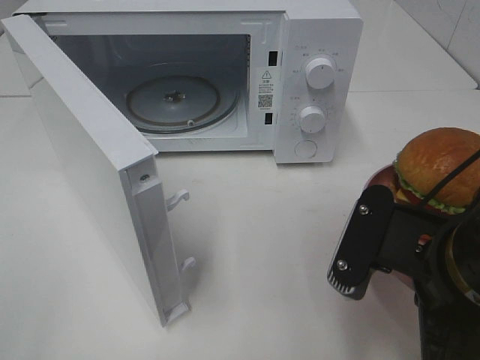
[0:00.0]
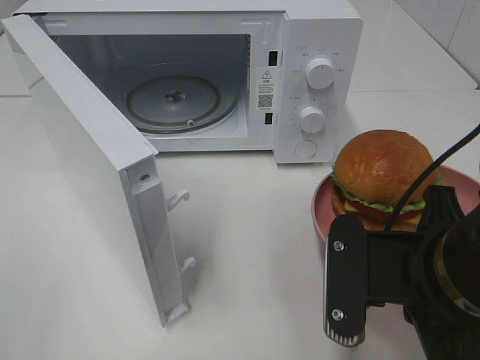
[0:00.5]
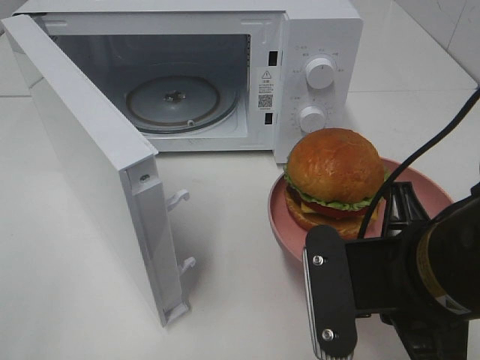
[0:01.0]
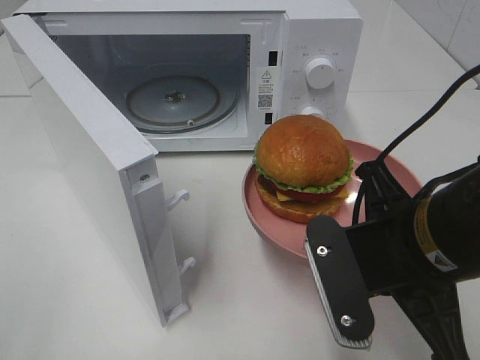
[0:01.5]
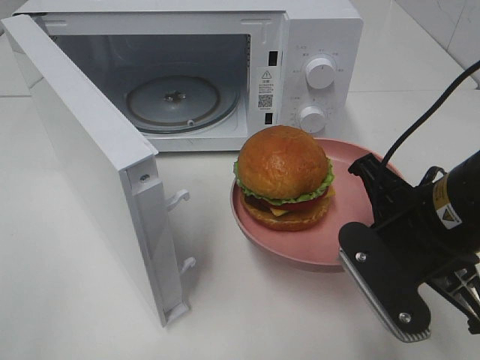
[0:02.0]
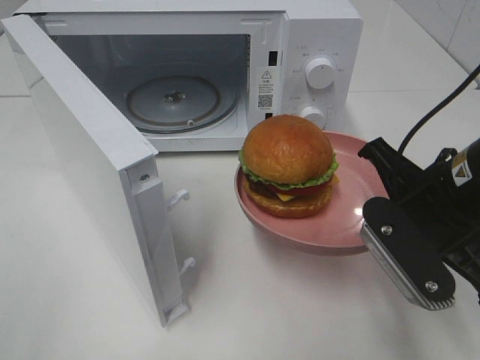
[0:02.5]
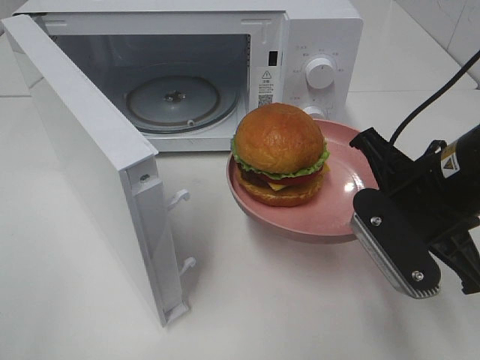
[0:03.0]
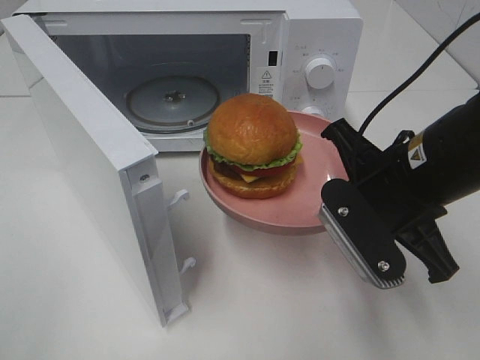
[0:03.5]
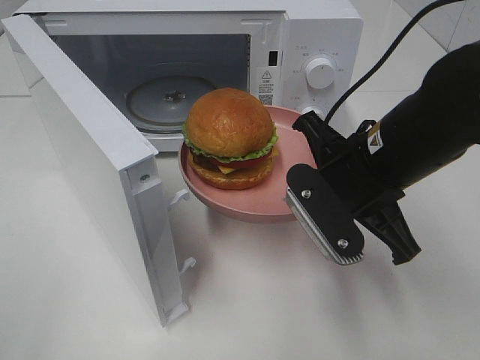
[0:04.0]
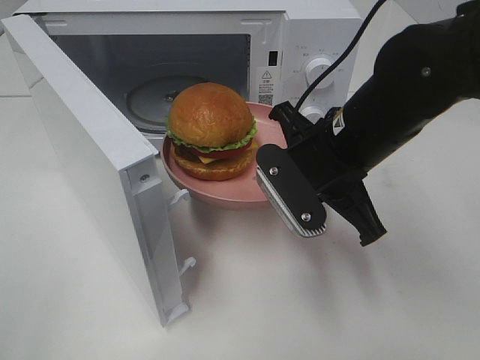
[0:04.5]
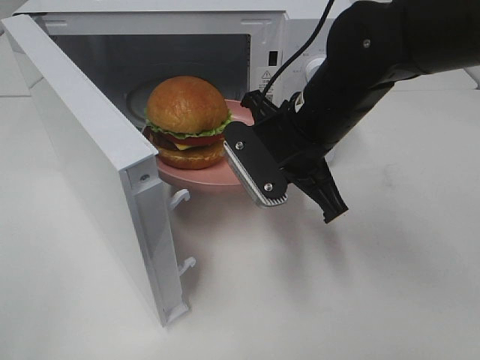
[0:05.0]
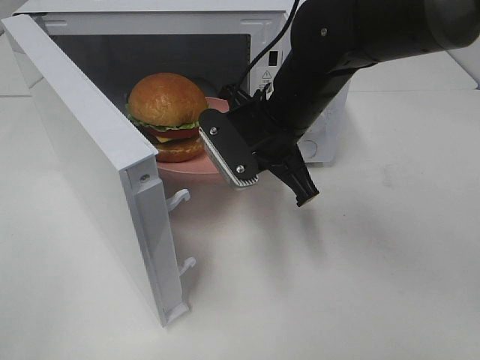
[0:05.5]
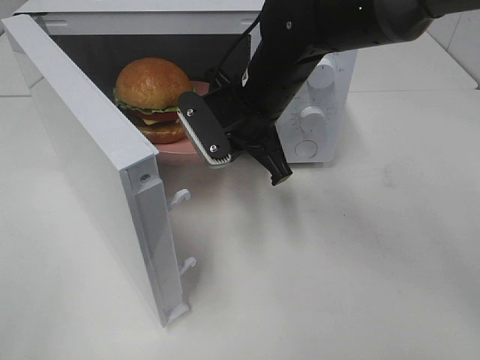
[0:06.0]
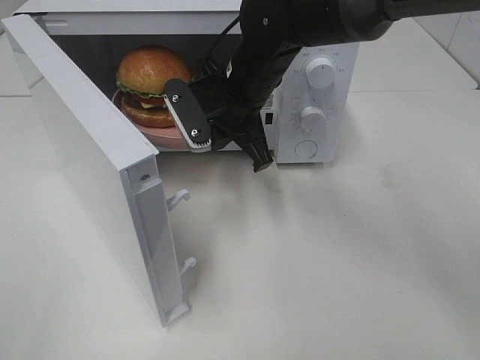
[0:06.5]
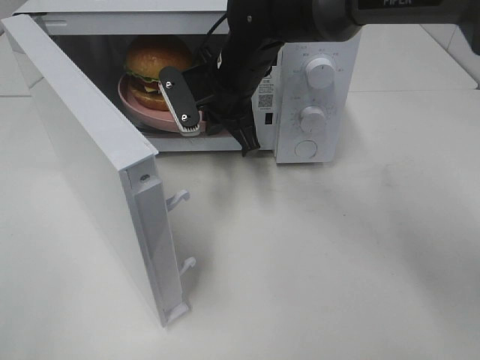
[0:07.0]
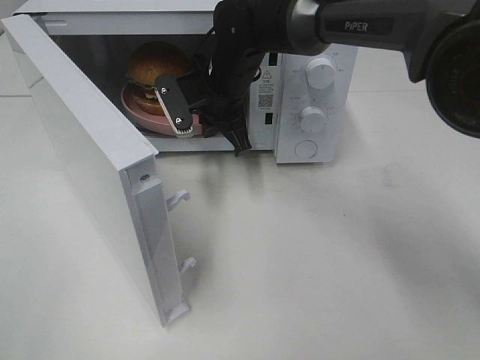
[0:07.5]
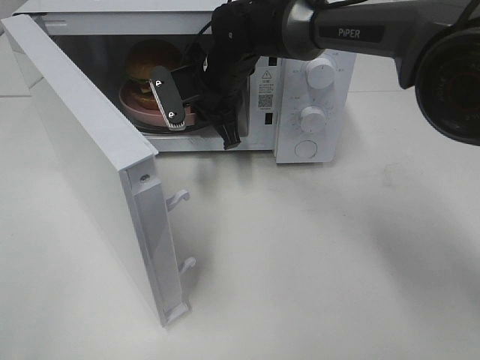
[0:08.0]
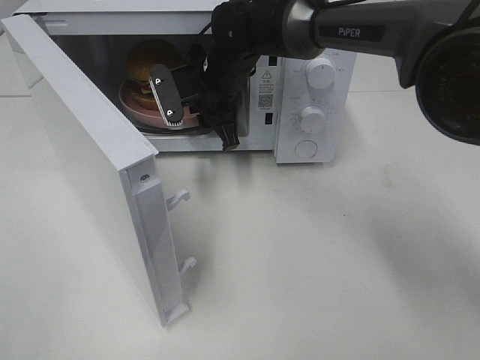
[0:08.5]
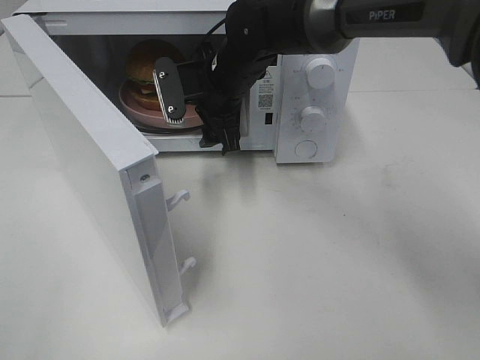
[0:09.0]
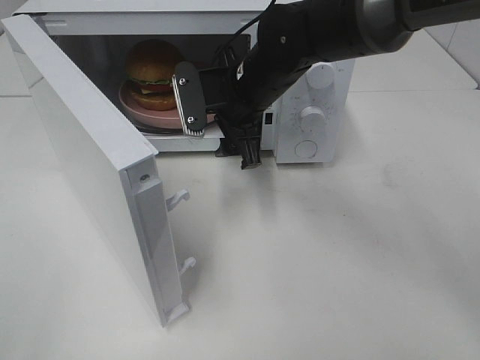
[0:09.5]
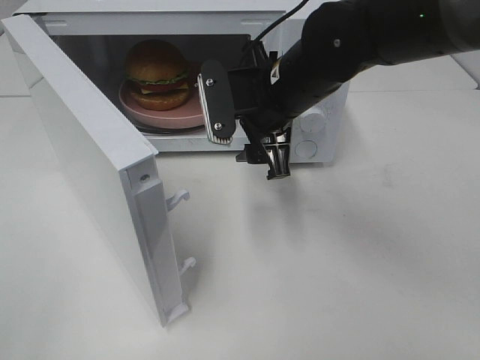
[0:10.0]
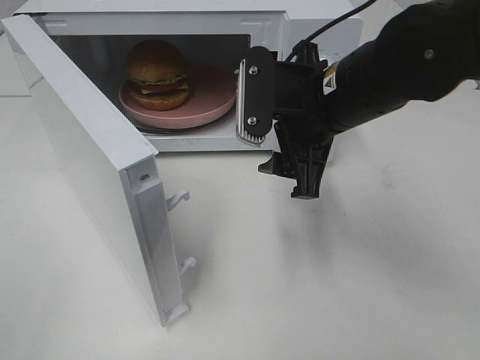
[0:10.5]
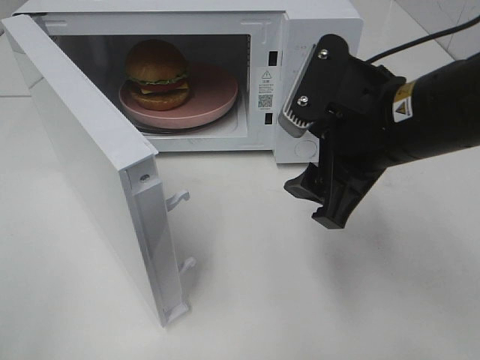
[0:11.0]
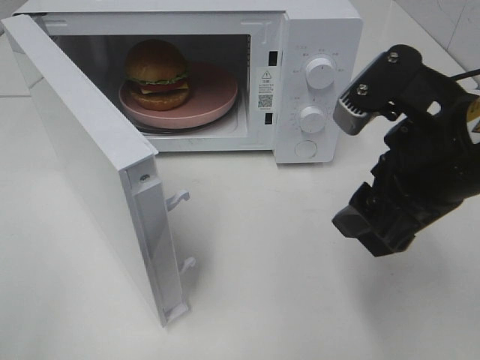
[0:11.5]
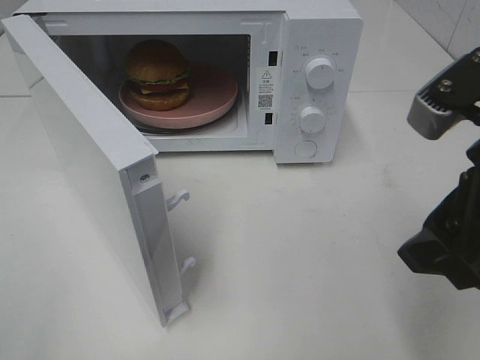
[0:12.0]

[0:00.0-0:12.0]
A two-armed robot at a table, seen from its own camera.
Task of the whole recording: Heat the burger.
Step, 0:00.0 to 0:08.0: Right hand: place the plate in the microwave.
0:00.0 to 0:02.0: The right gripper goes roughly 5 cm forward.
0:02.0 to 0:04.0: The right gripper shifts some 5 cm forward.
0:04.0 to 0:06.0: The right gripper is displaced forward and to the left by approximately 15 cm.
0:06.0 to 0:08.0: The right gripper shifts roughly 10 cm forward.
0:08.0 to 0:10.0: The right gripper heads backward and to the right, covering approximately 15 cm, and opens its fingers.
0:10.0 to 0:12.0: The right gripper moves backward and to the right, some 25 cm.

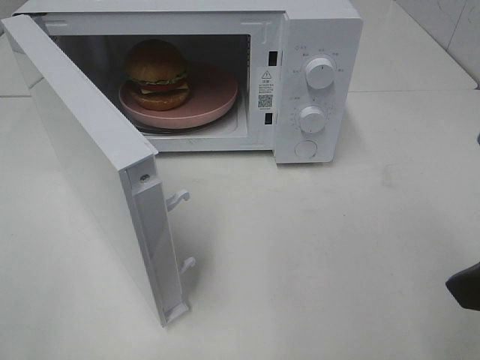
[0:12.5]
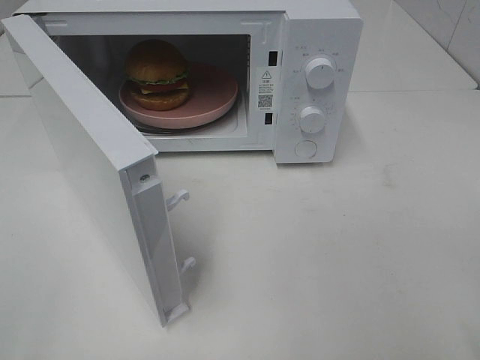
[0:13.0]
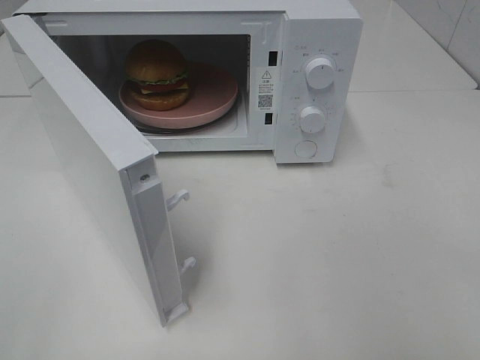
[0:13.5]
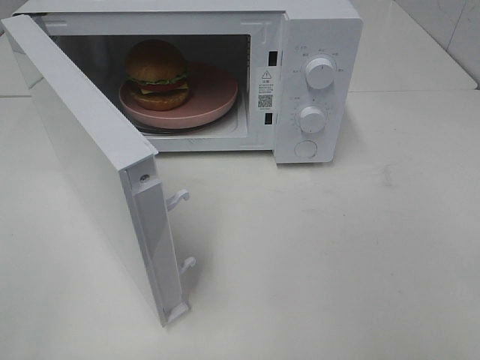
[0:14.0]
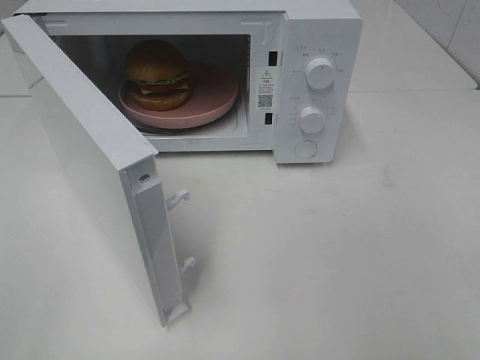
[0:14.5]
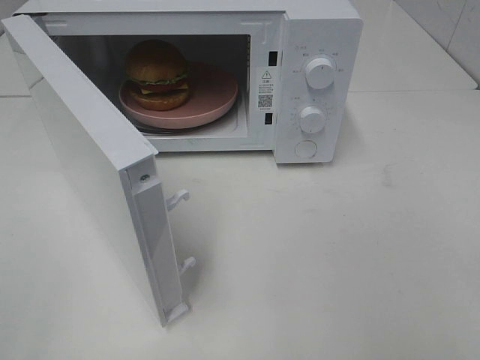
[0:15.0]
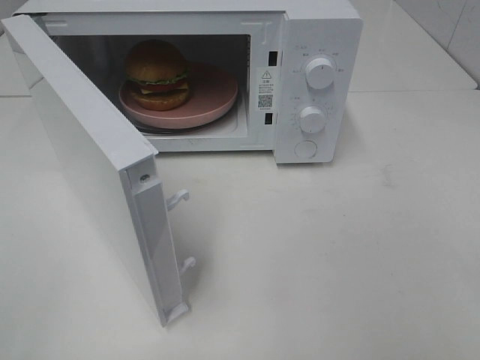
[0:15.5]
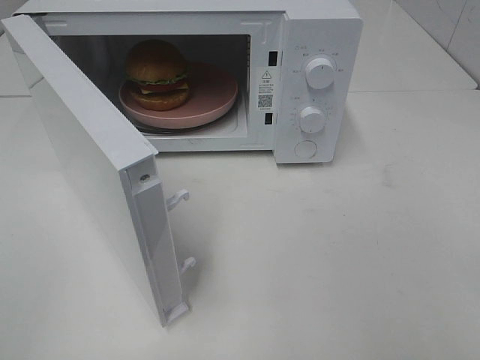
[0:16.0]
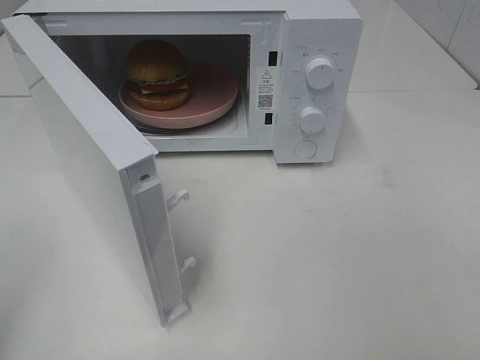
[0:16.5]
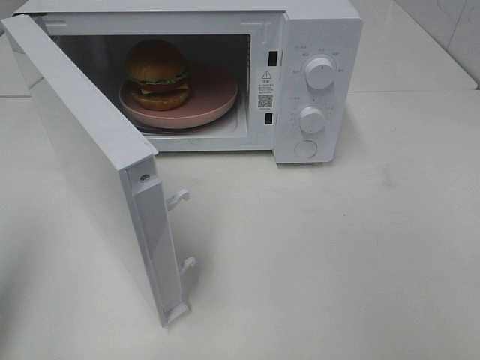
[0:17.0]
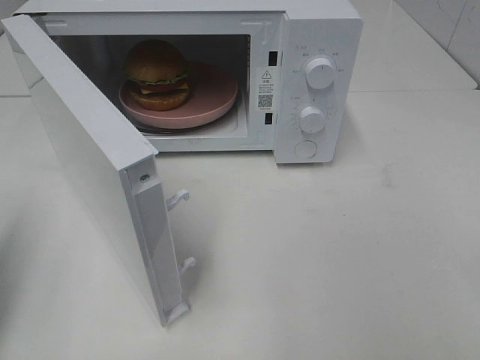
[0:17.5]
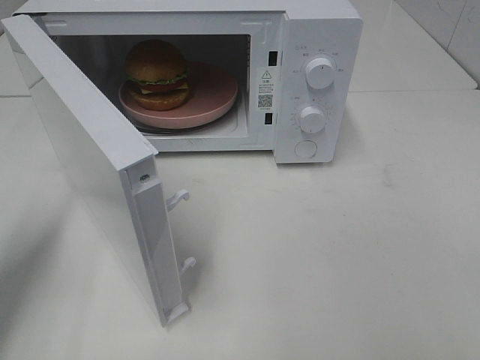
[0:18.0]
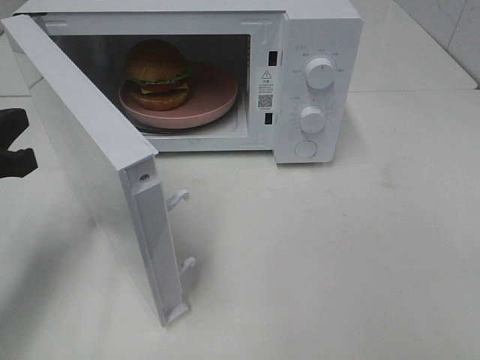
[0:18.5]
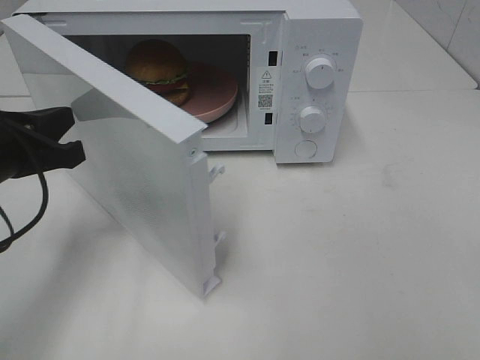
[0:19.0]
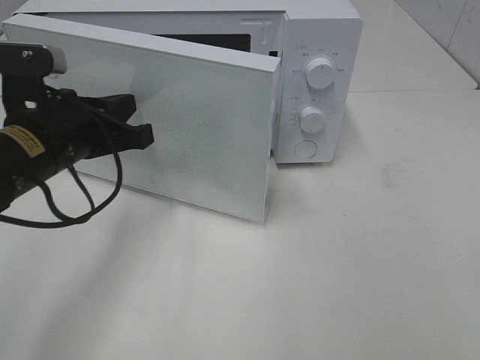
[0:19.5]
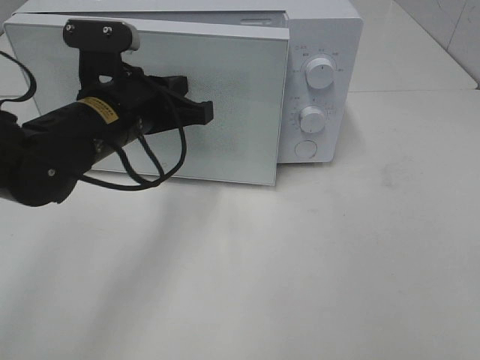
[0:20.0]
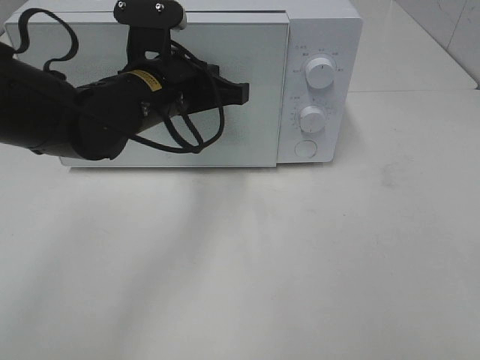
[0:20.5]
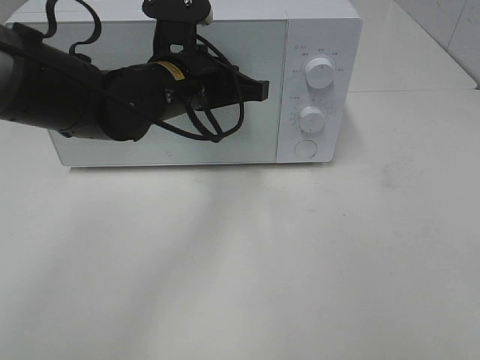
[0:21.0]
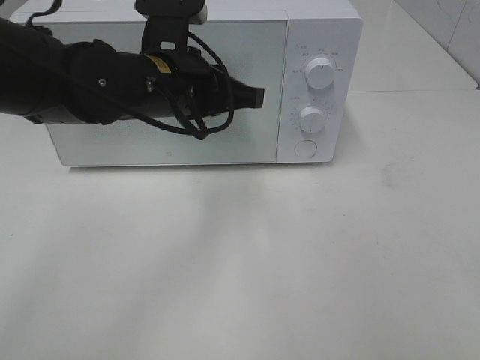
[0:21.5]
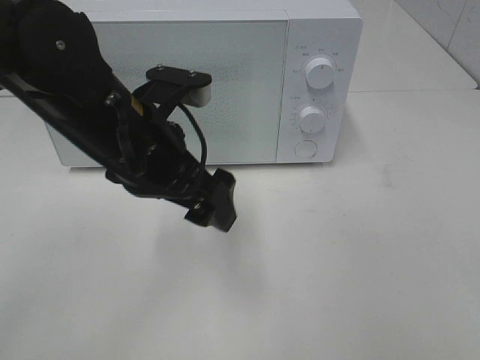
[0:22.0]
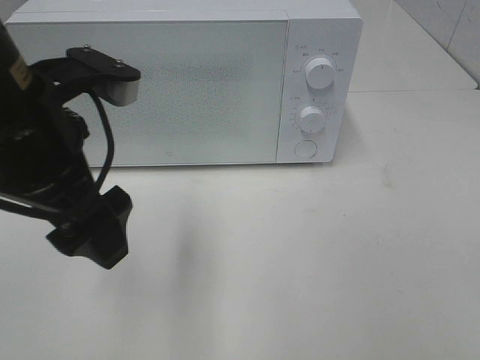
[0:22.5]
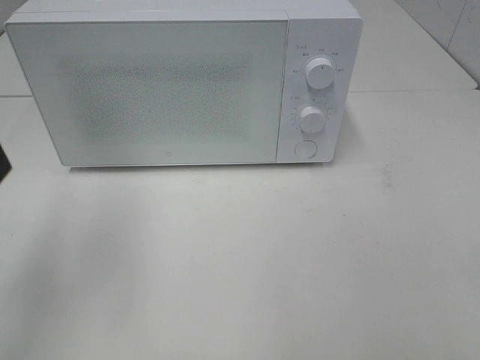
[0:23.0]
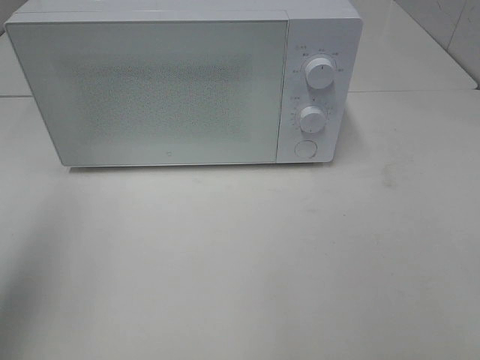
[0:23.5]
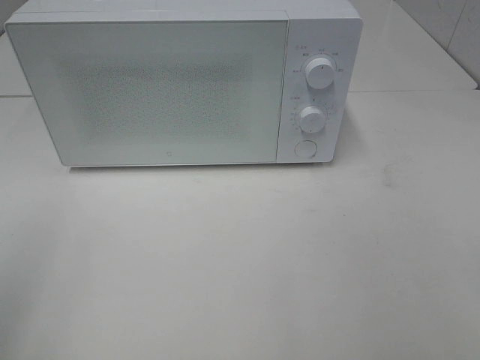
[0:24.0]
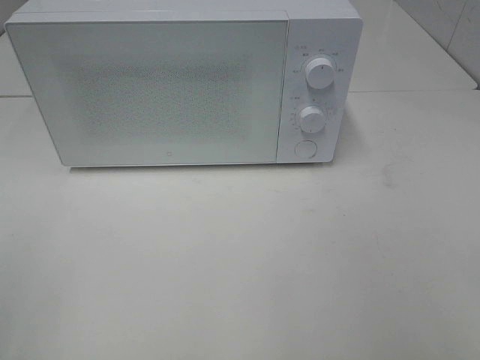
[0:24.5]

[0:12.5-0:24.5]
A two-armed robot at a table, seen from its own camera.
Task of the whole recording: Heat the burger.
Step, 0:12.5 to 0:21.0: Left hand: close the microwave door.
0:12.5 to 0:14.5: The right gripper goes some 15 cm backward and to the right.
0:16.5 to 0:18.5: The left gripper goes roughly 20 cm forward and downward.
0:18.5 to 0:20.5: The left gripper goes some 20 cm to the right and forward.
0:20.5 to 0:22.5: The left gripper goes approximately 15 cm backward, upward and to the left, and opens up.
0:22.5 to 0:24.5: The left gripper travels to the left and backward by some 25 cm.

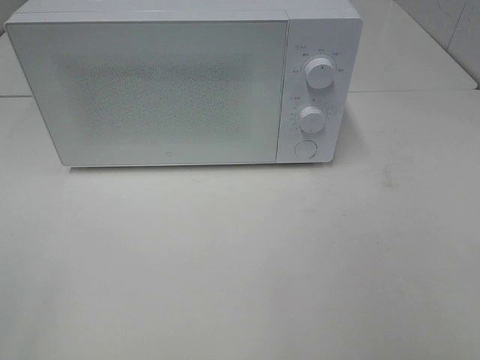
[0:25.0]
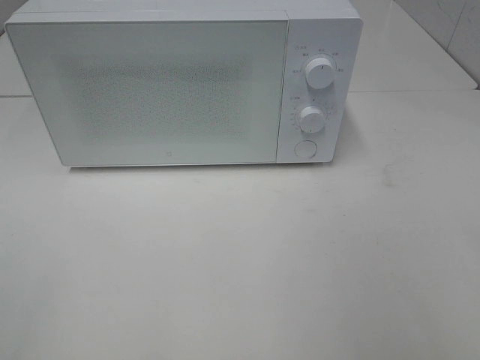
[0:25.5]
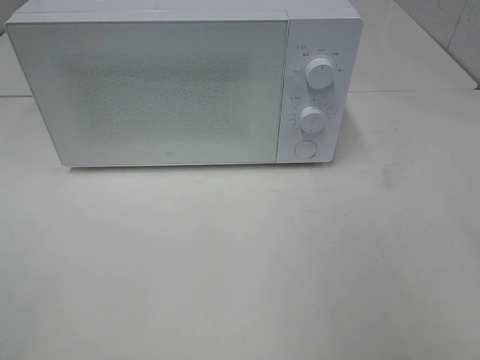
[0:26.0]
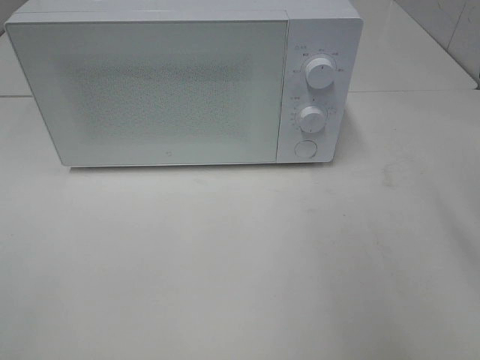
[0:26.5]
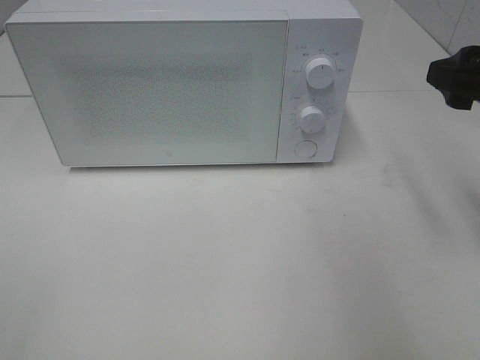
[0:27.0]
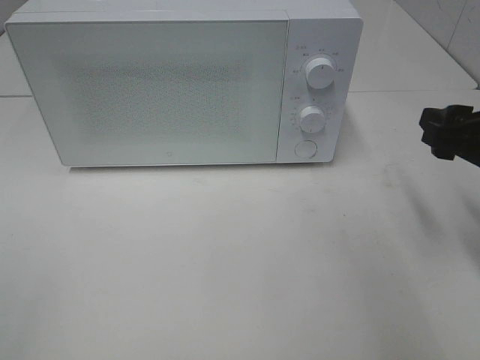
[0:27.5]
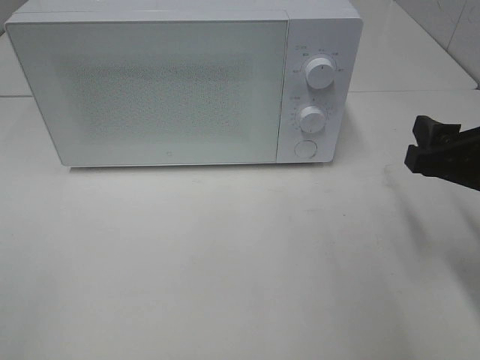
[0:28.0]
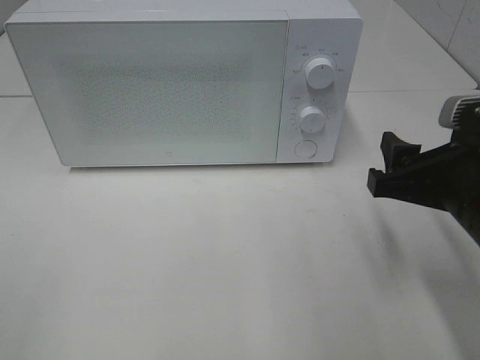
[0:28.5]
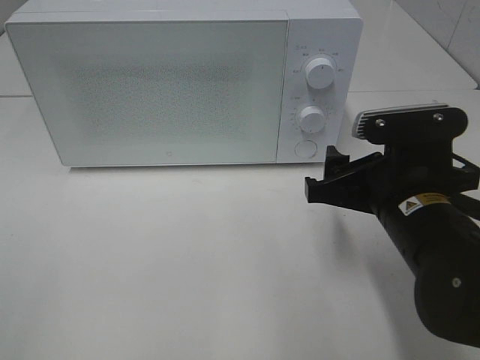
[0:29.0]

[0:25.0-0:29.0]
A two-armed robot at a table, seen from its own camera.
Task of the whole recording: Heat the burger.
0:25.0 to 0:27.0: The right gripper is displaced forward by some 25 cm.
0:27.0 to 0:29.0: The right gripper moves to the left and downward, about 15 cm.
